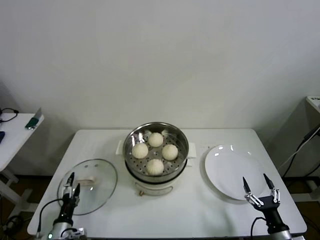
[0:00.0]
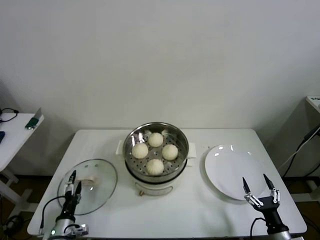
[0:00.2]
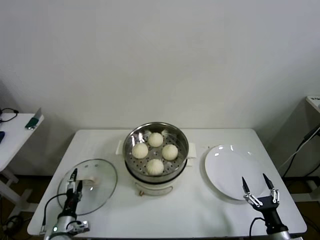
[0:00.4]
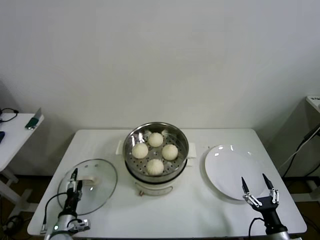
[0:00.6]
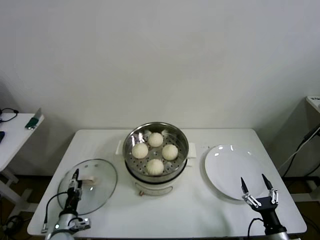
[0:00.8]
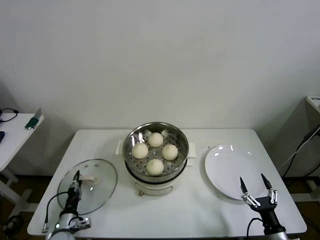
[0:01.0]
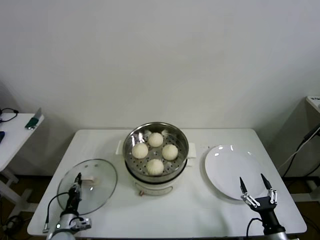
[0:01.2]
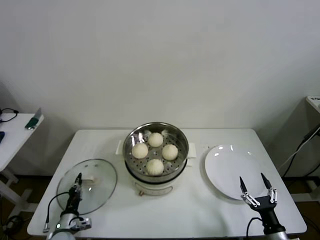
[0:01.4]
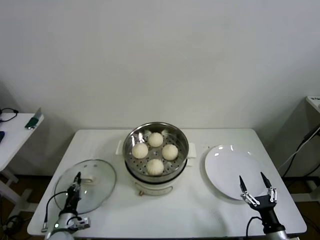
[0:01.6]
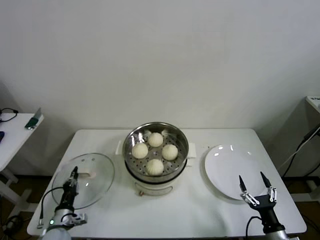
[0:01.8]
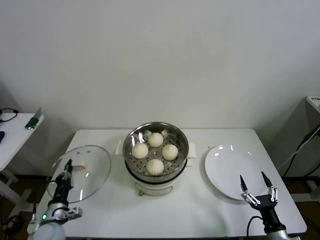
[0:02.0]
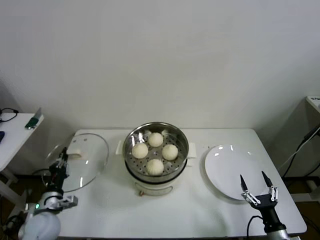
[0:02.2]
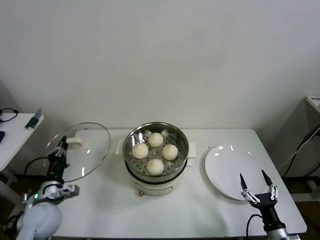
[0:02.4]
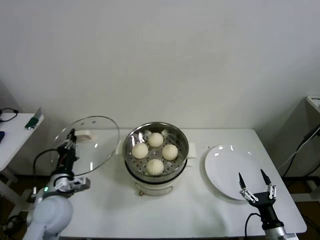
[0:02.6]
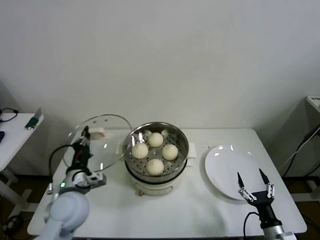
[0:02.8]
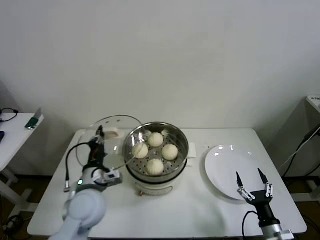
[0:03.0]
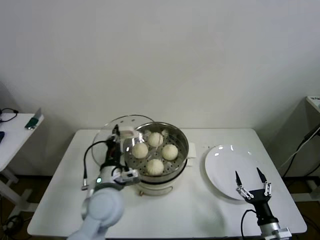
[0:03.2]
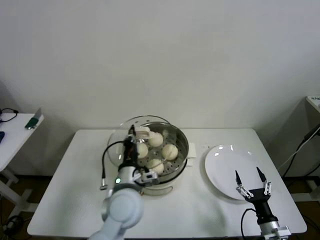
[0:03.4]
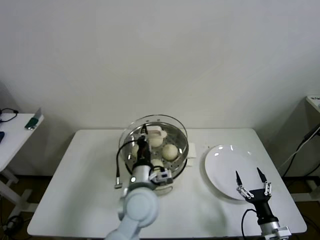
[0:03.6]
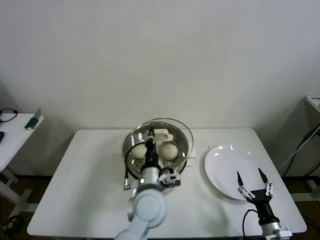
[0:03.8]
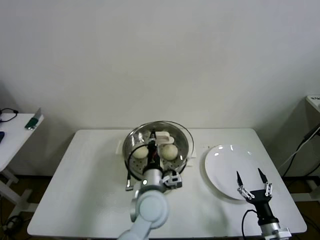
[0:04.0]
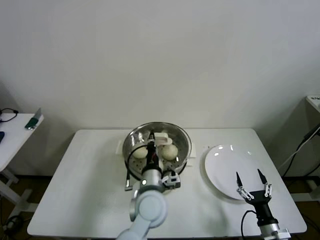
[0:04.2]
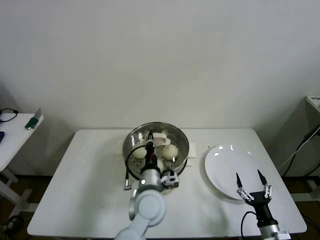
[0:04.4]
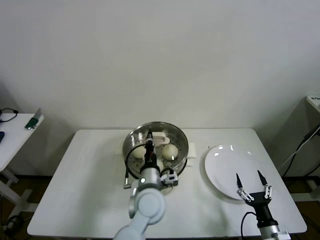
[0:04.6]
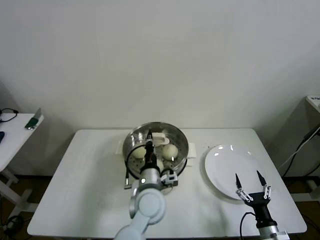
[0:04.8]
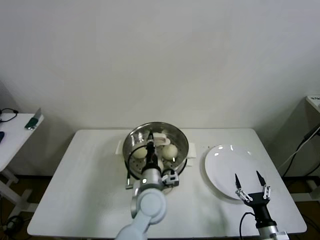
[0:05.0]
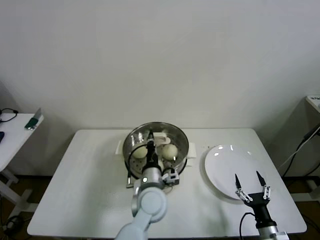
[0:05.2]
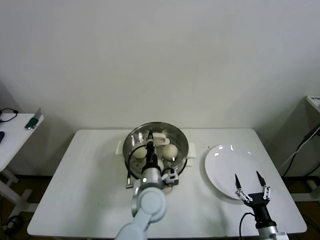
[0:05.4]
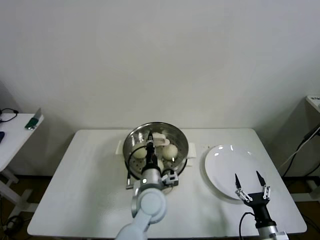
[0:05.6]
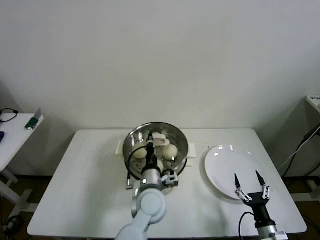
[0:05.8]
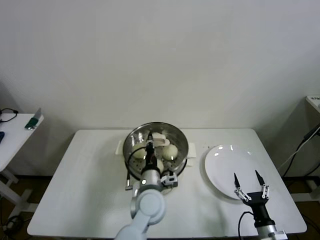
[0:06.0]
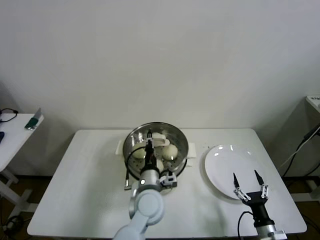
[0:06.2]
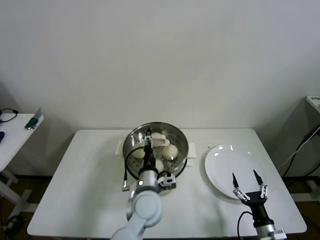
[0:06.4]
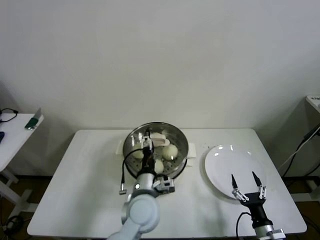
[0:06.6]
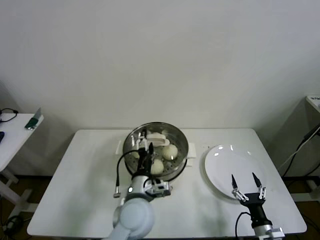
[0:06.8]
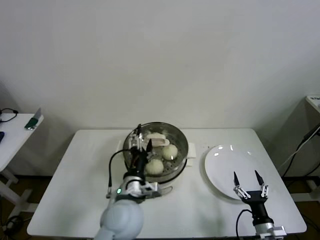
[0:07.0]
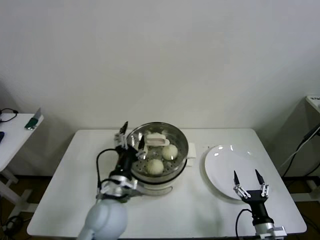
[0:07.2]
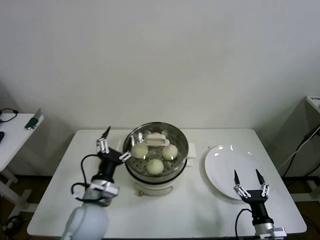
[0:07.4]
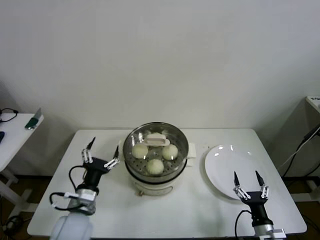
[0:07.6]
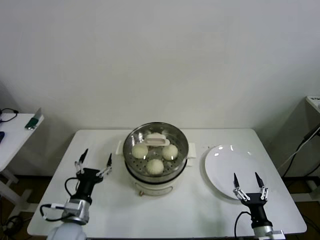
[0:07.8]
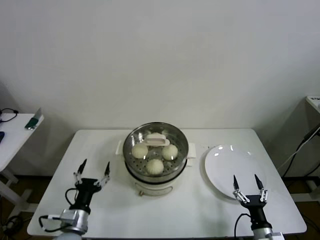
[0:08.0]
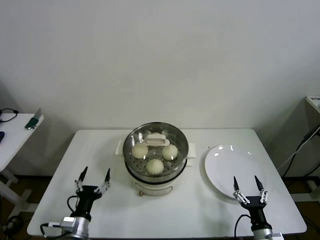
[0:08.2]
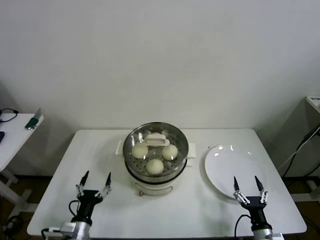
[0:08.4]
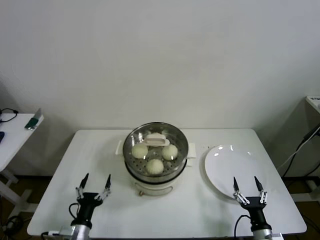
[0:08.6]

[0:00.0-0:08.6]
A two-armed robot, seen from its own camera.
Step, 1.6 to 6.8 s: Place the pot lid on the steamer with left gripper.
0.0 to 1.4 s: The left gripper ends up some 5 cm from where it was, and closes its fingers.
1.4 to 2.8 s: The left gripper is displaced upward and to the right by about 25 cm.
2.8 to 4.4 s: The left gripper shifts some 25 cm to the right.
4.4 to 5.8 s: There are only small adjustments of the grippers.
5.8 to 7.2 s: The left gripper moves to the left, upward and backward, approximately 10 cm, and opens up.
7.2 to 8.6 s: The left gripper heads downward, to the left and backward, covering some 25 cm.

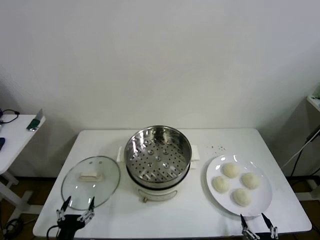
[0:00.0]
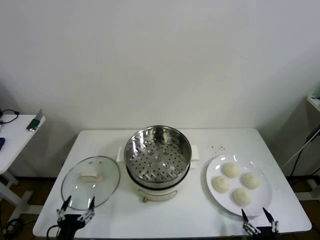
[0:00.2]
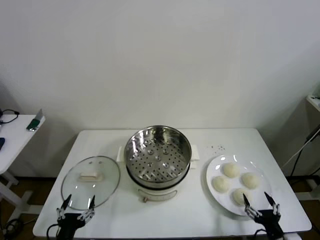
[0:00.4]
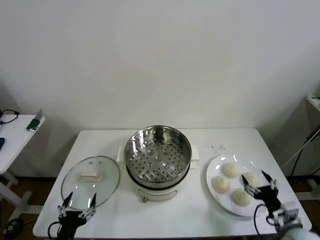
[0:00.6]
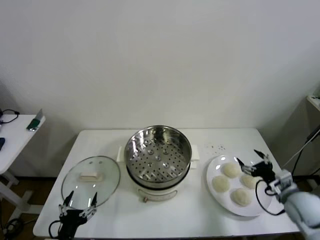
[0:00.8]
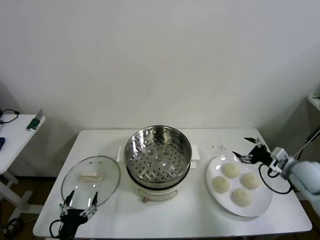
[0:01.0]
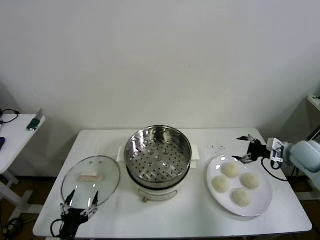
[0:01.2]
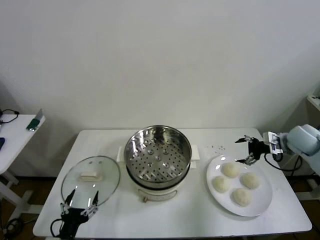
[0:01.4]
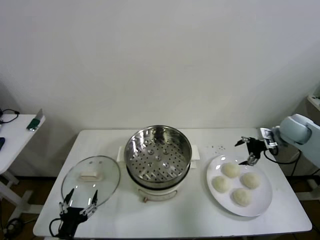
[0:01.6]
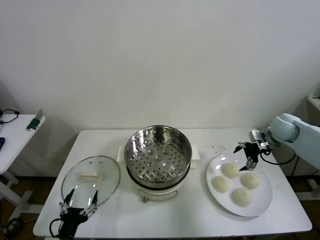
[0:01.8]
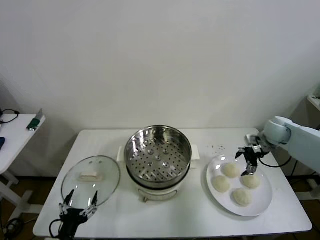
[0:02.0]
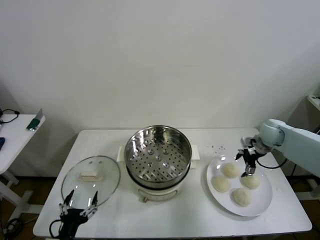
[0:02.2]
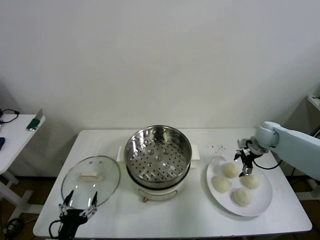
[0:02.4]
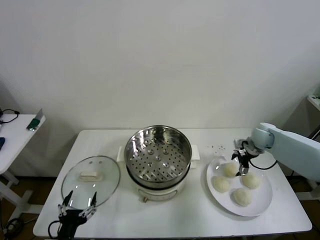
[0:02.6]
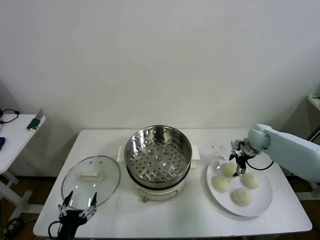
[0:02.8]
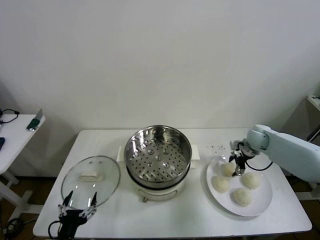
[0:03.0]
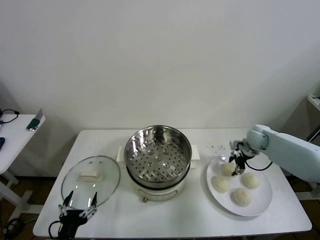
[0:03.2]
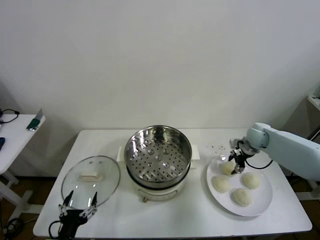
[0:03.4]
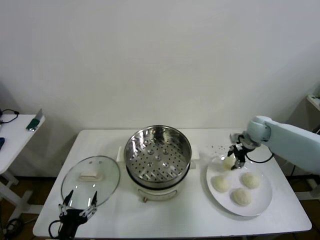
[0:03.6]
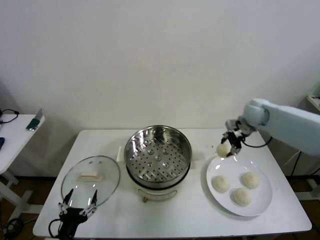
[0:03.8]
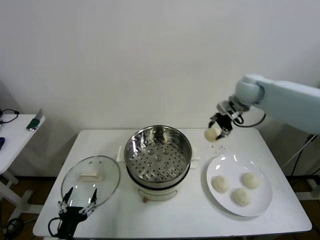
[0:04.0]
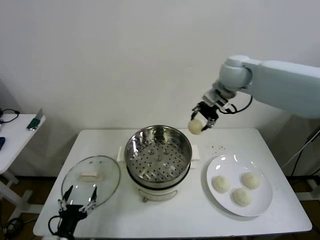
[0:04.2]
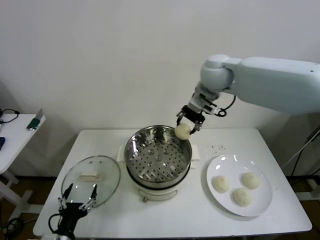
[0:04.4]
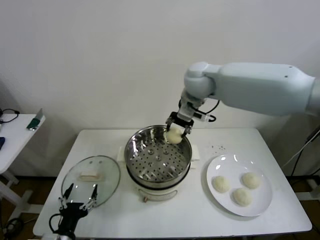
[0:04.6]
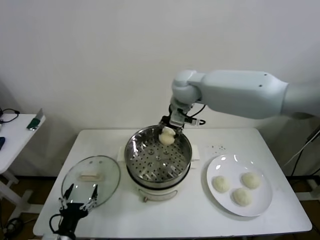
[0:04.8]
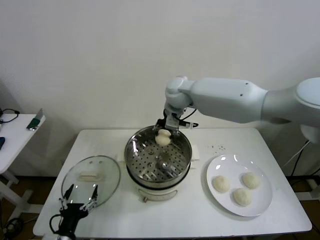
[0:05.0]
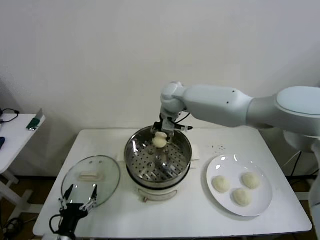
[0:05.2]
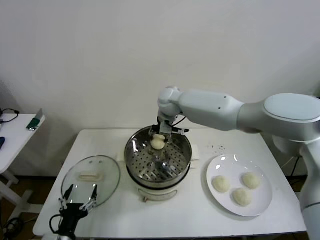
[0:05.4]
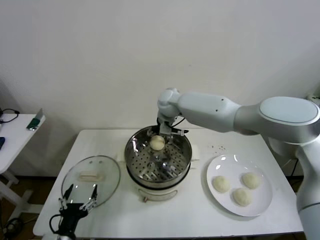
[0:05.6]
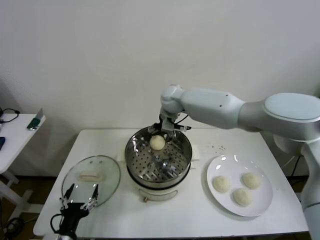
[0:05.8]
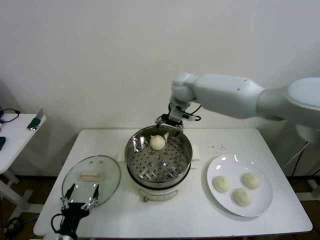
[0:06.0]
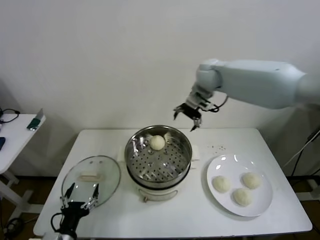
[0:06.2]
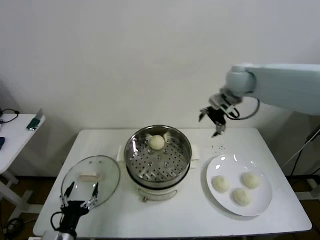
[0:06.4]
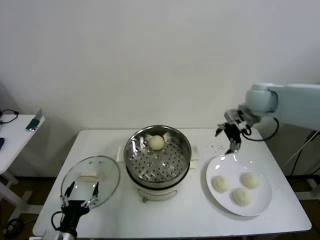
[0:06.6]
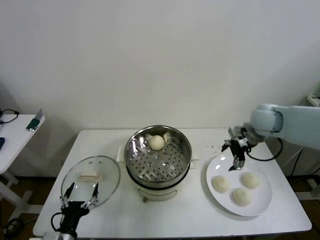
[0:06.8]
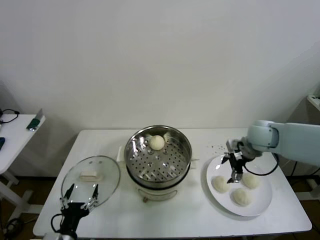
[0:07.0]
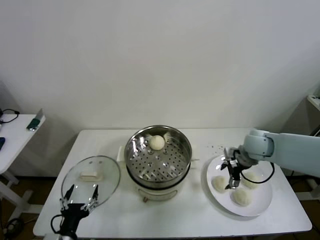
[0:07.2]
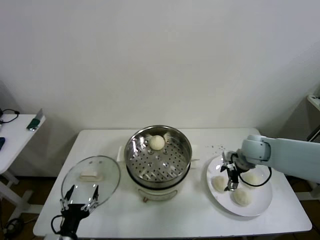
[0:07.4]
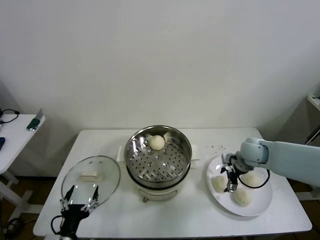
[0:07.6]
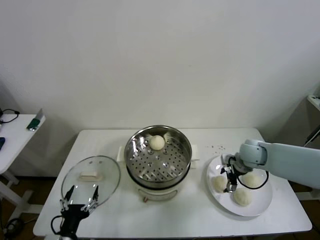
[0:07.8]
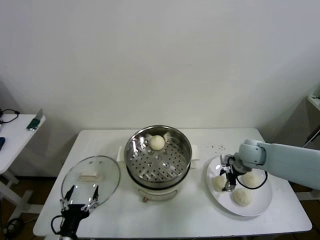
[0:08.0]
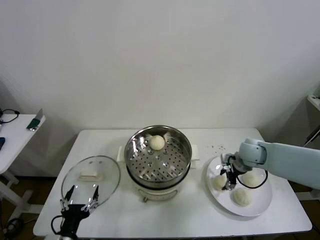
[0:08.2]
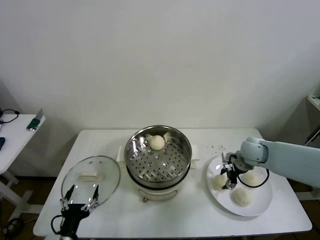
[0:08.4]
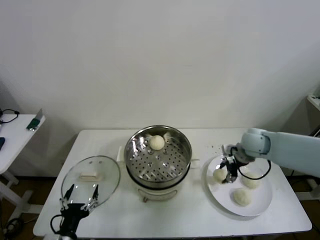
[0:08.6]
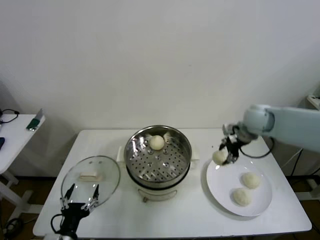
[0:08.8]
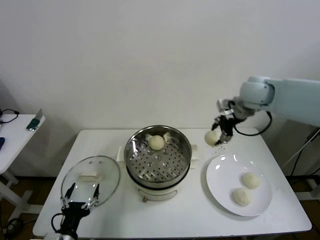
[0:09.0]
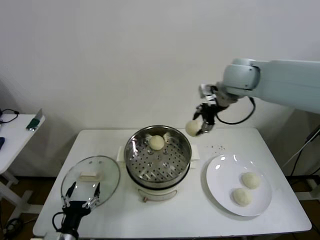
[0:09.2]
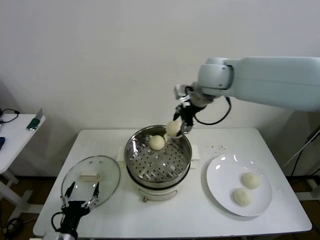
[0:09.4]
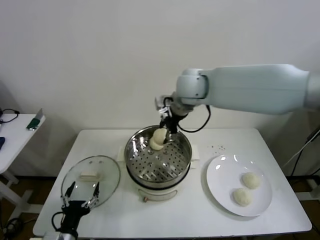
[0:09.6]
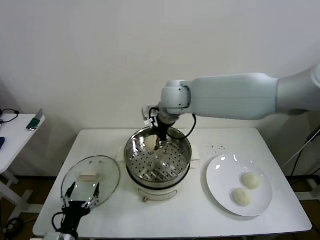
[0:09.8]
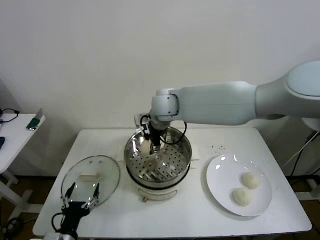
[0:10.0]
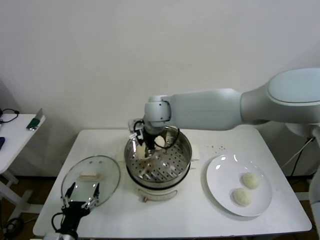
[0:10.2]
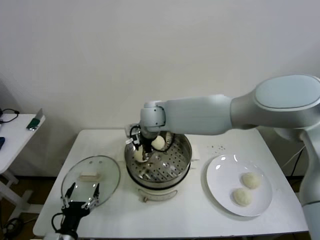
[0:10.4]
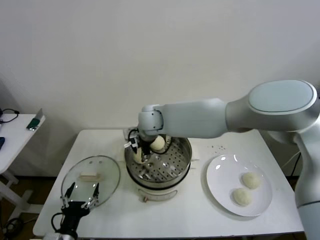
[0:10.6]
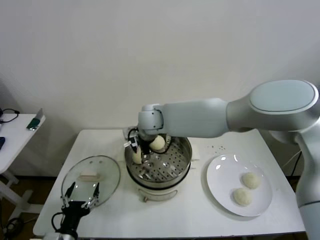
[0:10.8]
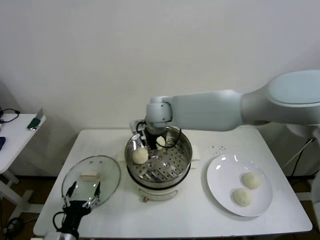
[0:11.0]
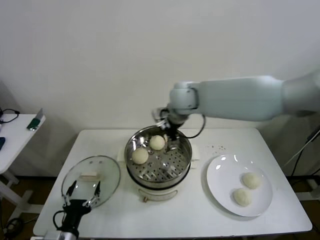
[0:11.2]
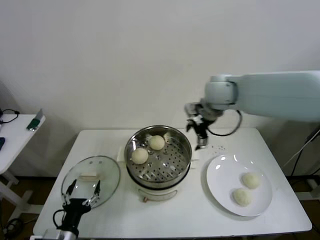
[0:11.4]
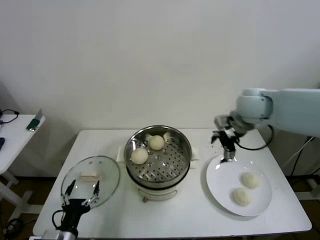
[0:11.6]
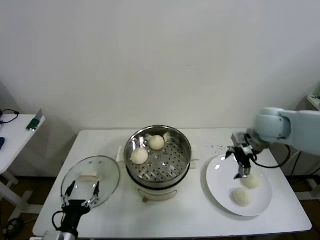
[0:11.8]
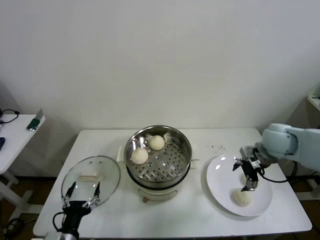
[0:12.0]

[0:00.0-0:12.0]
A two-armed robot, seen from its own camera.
Step, 0.0 to 3.0 s: Grasp the baozi in the plate with right gripper.
Step, 3.4 to 5.8 s: Place the baozi on the steamer with right gripper.
Step, 6.0 to 8.2 s: Grasp the baozi in the plate with right gripper.
Step, 8.4 to 10.8 s: Place the baozi on the steamer with right gripper.
1.6 to 3.0 s: The right gripper is displaced downward and to the left by approximately 10 cm, and closes its fingers.
3.0 to 4.4 s: The right gripper moves upward and to the left, about 35 cm, and closes its fingers.
4.4 to 6.0 s: The right gripper moves forward, about 5 cm, and opens up.
6.0 to 7.6 s: The right gripper travels downward, to the right and backward by roughly 35 cm.
7.6 to 9.0 s: The right gripper travels upward by approximately 25 cm, and closes.
9.0 to 10.4 s: The right gripper heads to the left, covering roughly 30 cm.
10.4 to 12.0 s: The right gripper heads to the right, covering approximately 40 cm, and opens.

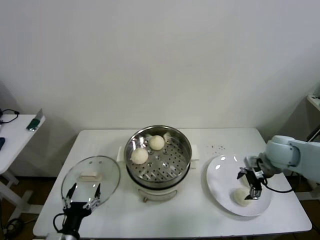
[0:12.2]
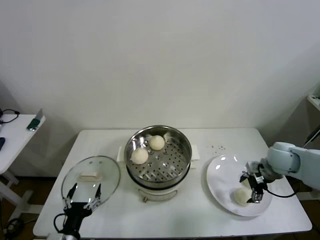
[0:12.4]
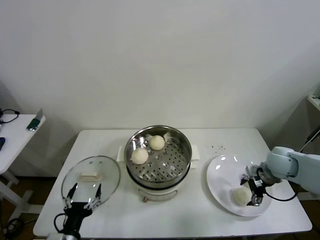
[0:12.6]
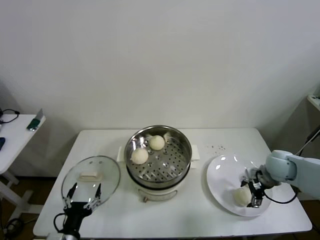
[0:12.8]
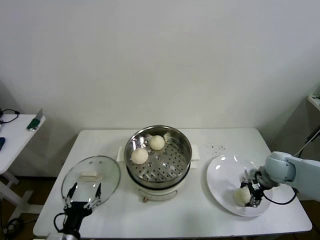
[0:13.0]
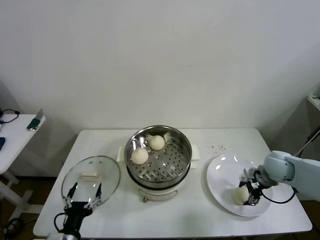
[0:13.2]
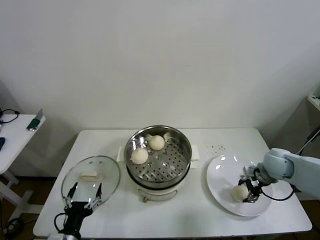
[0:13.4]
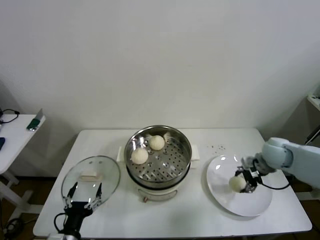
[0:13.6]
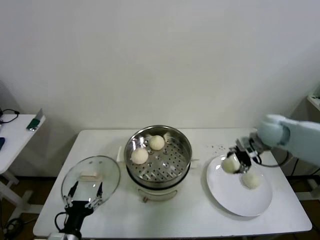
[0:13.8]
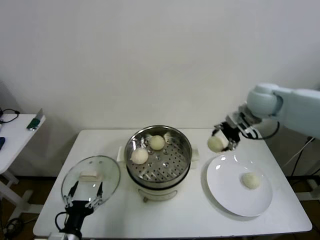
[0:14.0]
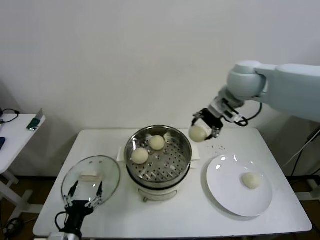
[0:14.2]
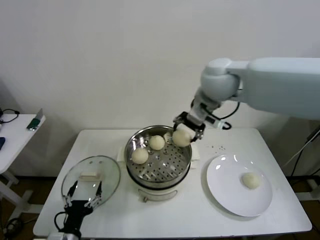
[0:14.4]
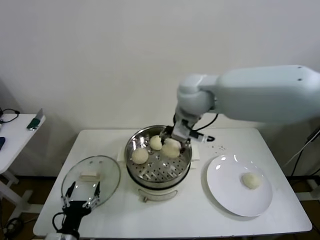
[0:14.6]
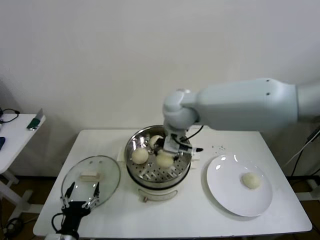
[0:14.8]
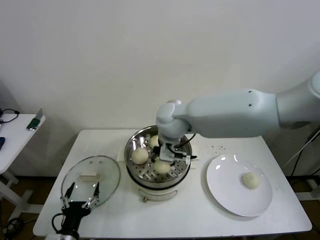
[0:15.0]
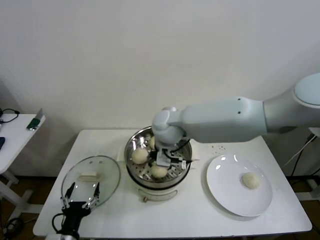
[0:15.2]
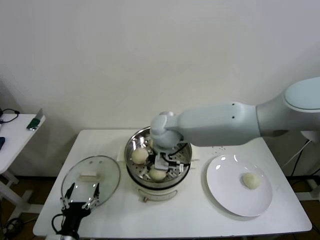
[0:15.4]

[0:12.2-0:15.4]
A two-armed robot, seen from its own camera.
12.2 to 13.8 s: The right gripper heads upward and forward, covering roughly 10 cm, and closes up.
13.8 to 15.4 s: The right gripper heads to the left, covering roughly 35 cm.
